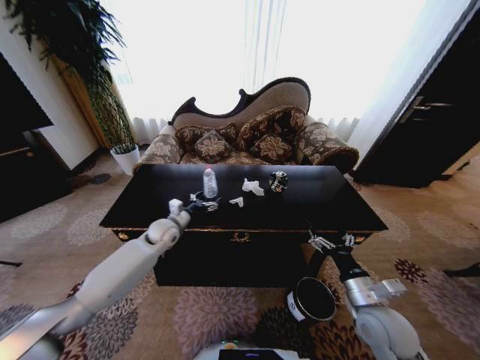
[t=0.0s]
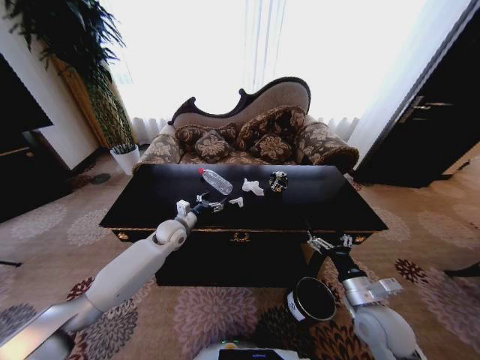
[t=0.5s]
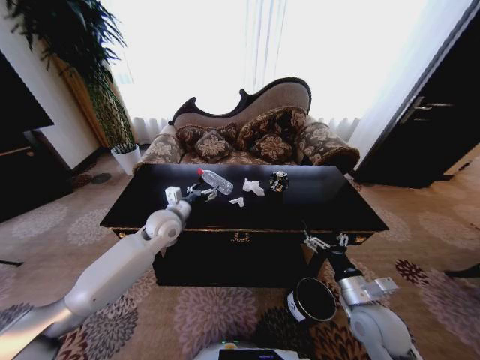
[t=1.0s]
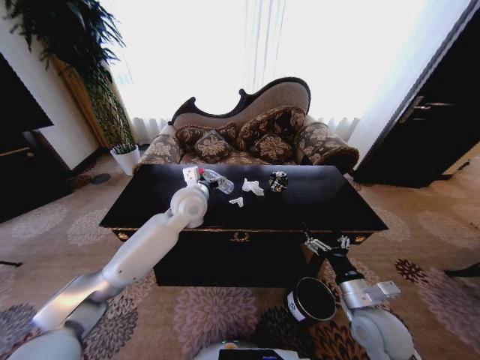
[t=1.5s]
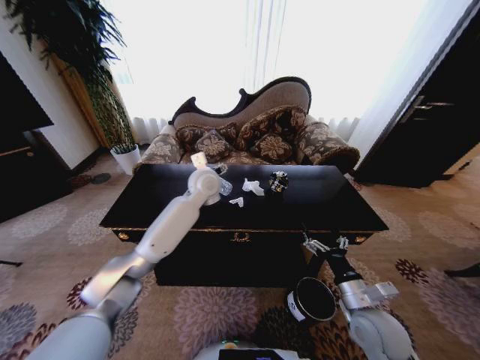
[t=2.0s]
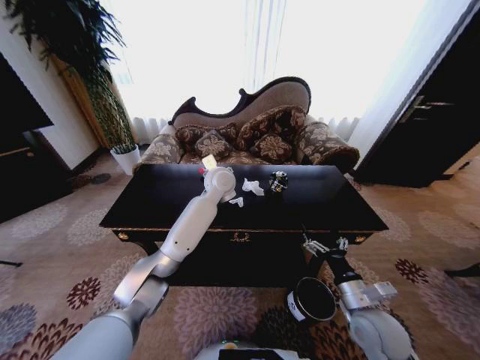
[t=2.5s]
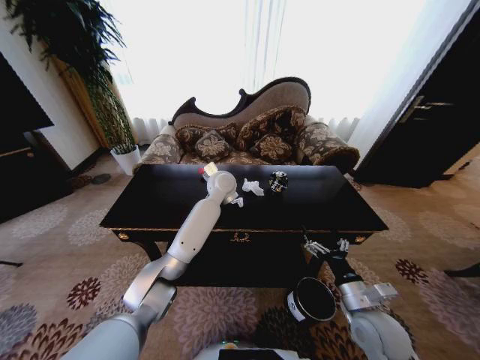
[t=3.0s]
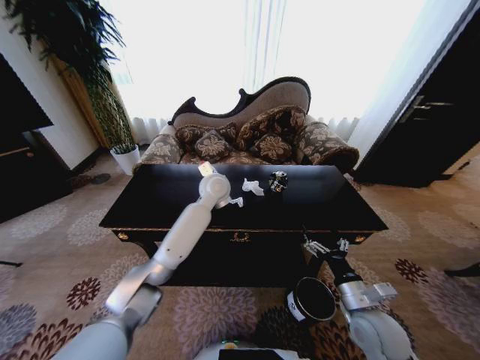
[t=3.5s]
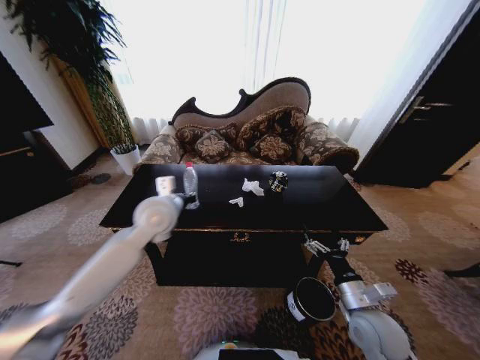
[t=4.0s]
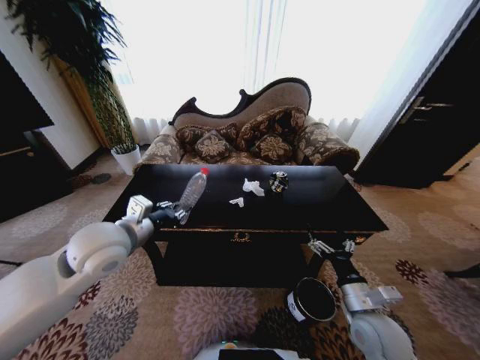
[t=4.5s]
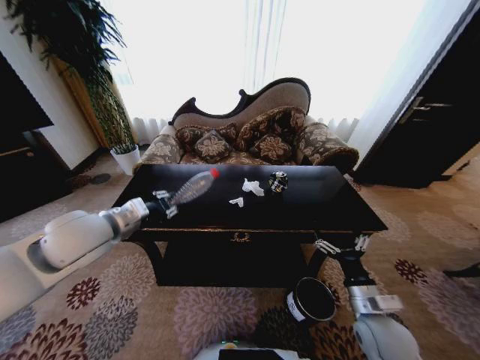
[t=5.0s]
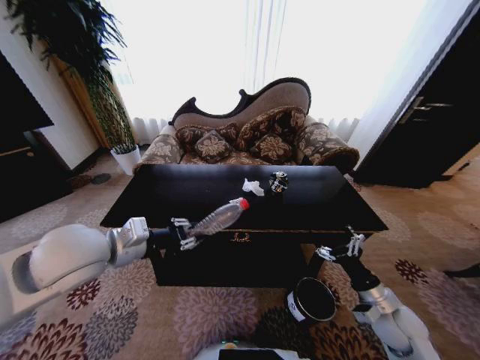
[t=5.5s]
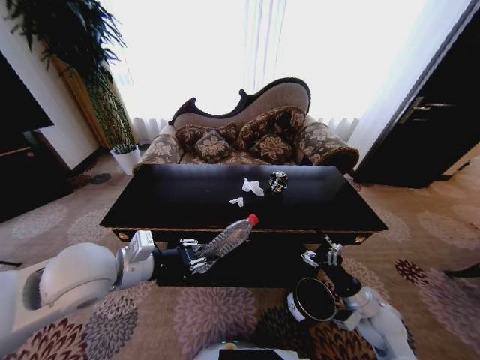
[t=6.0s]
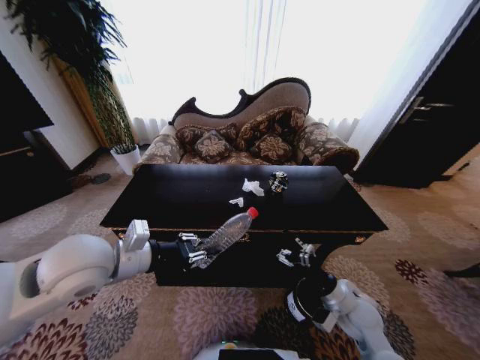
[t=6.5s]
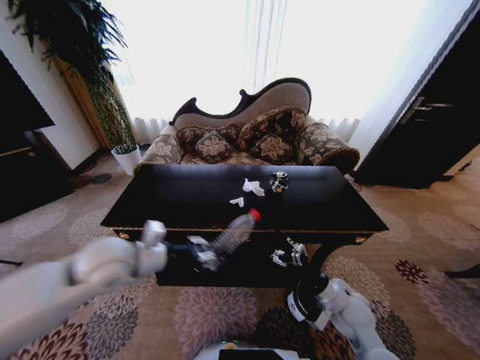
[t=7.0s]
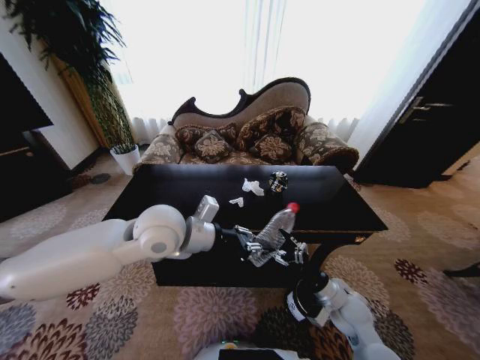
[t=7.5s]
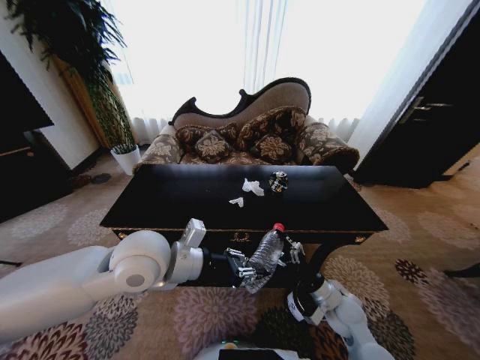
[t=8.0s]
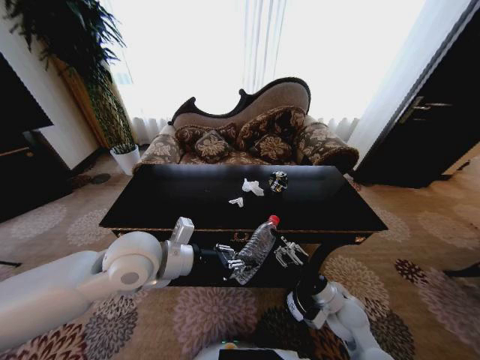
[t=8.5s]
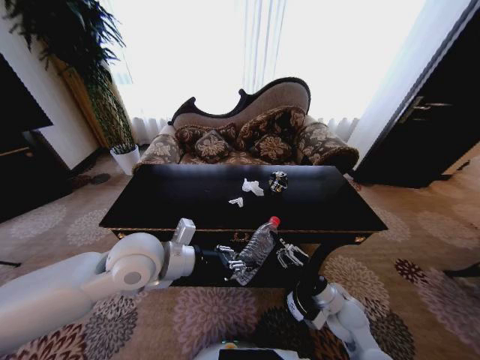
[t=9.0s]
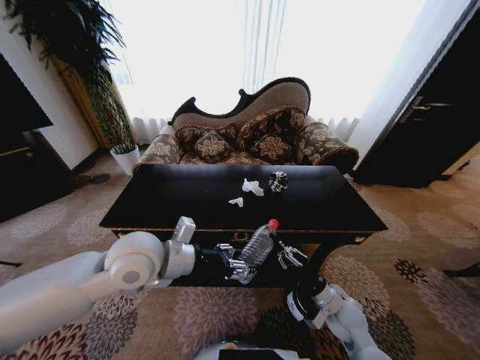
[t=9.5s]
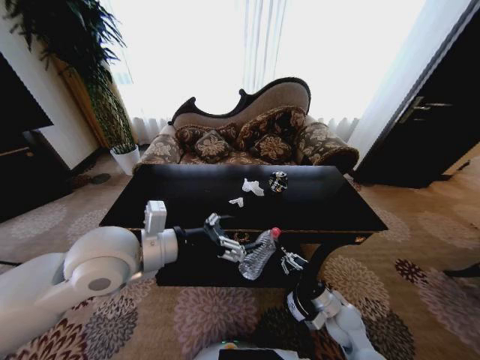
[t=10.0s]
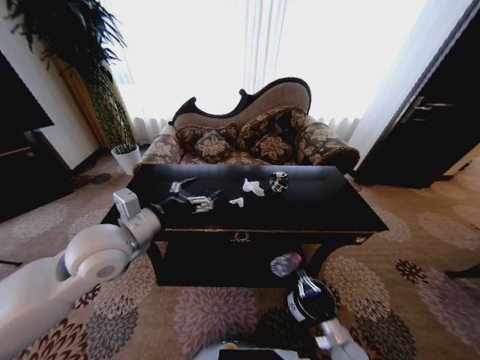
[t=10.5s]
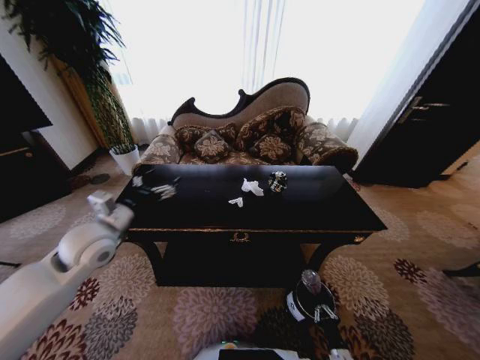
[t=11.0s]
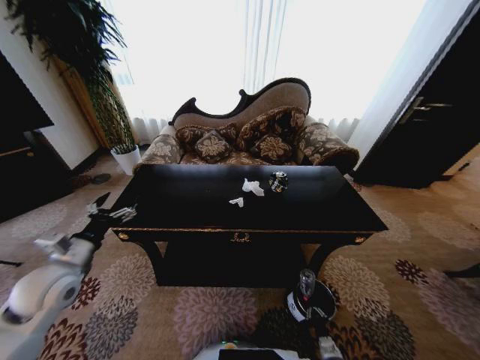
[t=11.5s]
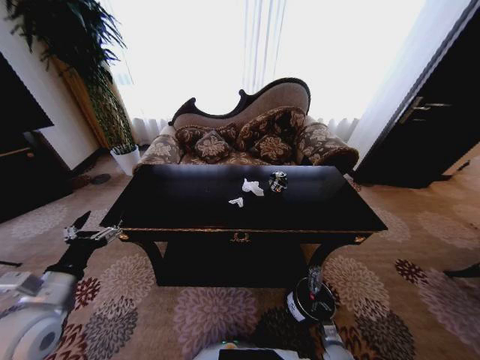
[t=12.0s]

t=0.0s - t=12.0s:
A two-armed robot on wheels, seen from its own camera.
Task of the whole recording: Move to the front of the table and place the trash on the table into the trash bin.
t=0.0s - t=2.0s: The left gripper heads upward and to the right, covering some 25 cm.
t=2.0s - t=4.0s: The left gripper heads backward and to the left, covering about 15 cm, and closes up.
t=4.0s - t=6.0s: The right gripper goes some 10 cm to the right and downward. The left gripper moves backward and to the left, approximately 15 cm.
t=6.0s - t=8.0s: The left gripper goes about 10 cm to the right. The right gripper travels to the left by approximately 5 cm.
t=8.0s - t=10.0s: The left gripper shifts by some 5 cm, and opens. The right gripper closes up.
t=10.0s - t=12.0s: The left gripper moves to the left, downward and backward, about 25 cm. Meanwhile the right gripper is displaced downward by roughly 25 cm.

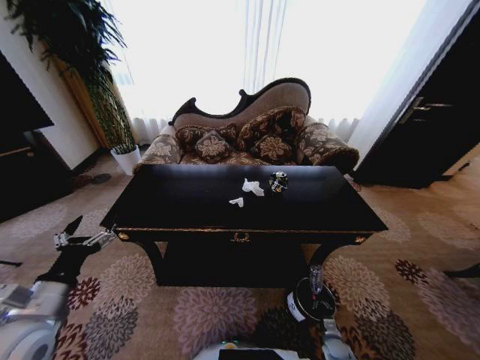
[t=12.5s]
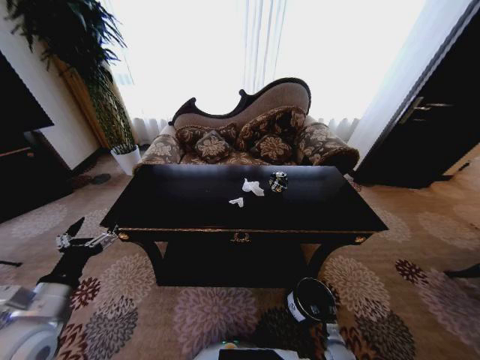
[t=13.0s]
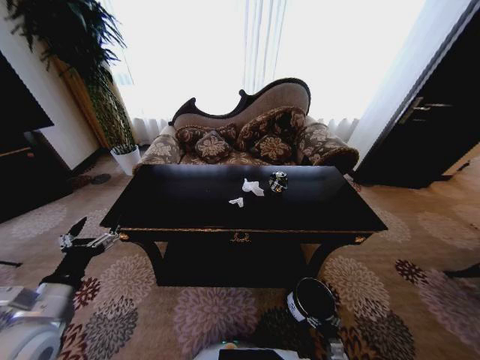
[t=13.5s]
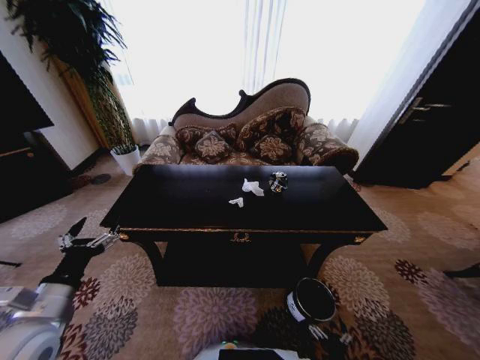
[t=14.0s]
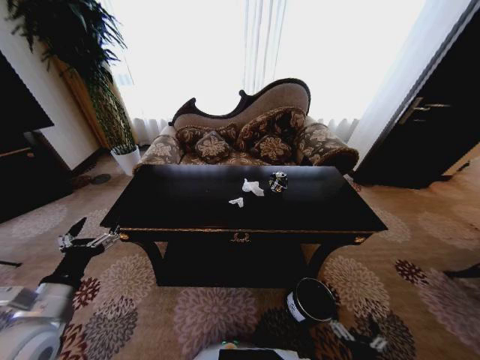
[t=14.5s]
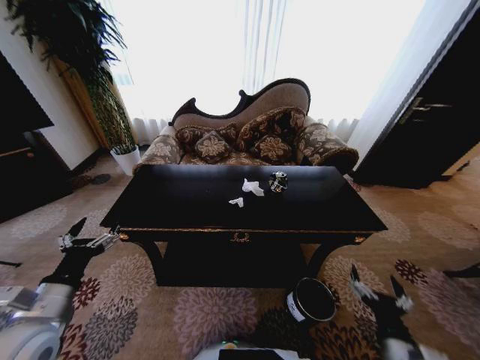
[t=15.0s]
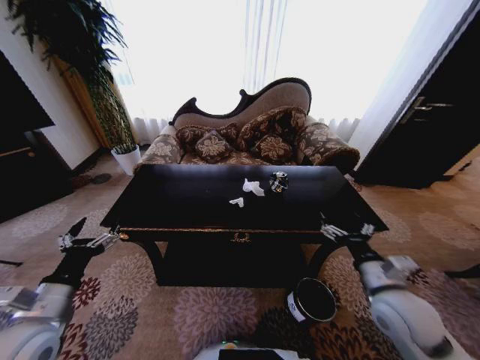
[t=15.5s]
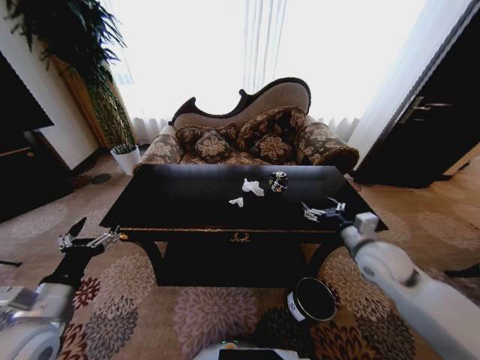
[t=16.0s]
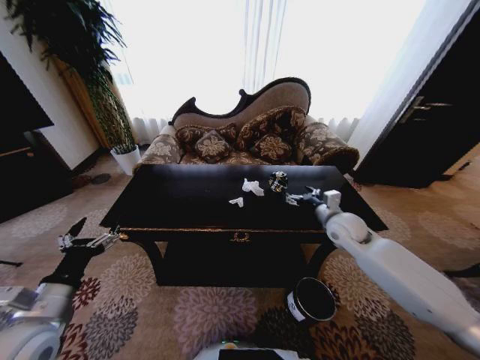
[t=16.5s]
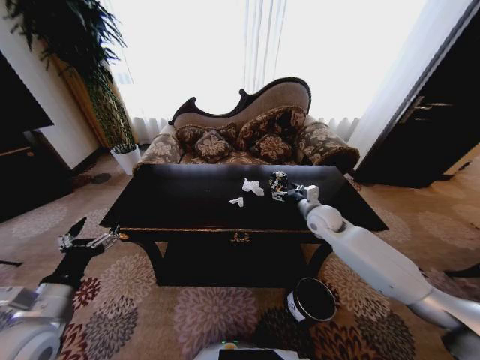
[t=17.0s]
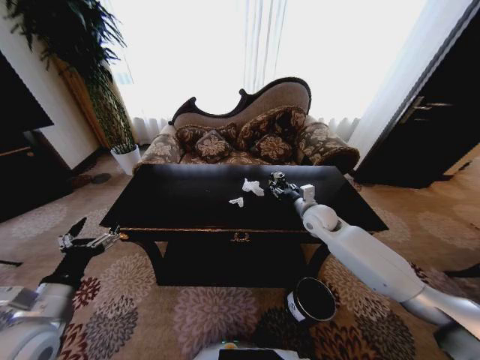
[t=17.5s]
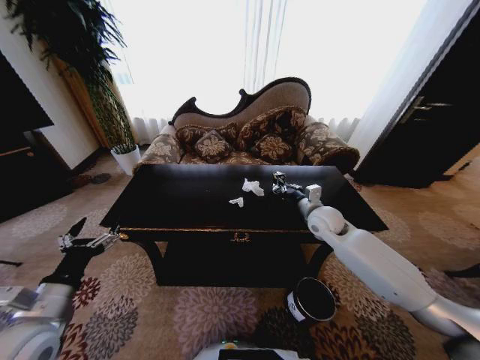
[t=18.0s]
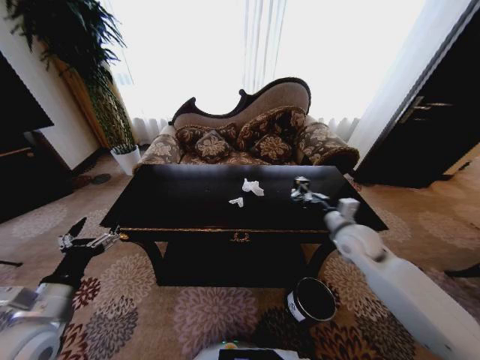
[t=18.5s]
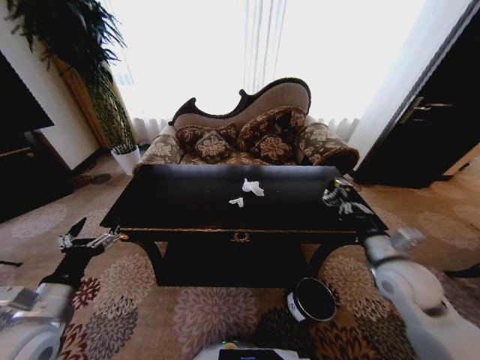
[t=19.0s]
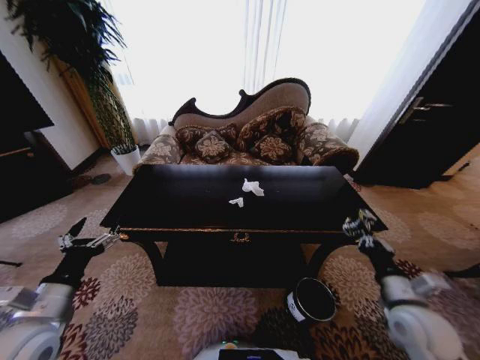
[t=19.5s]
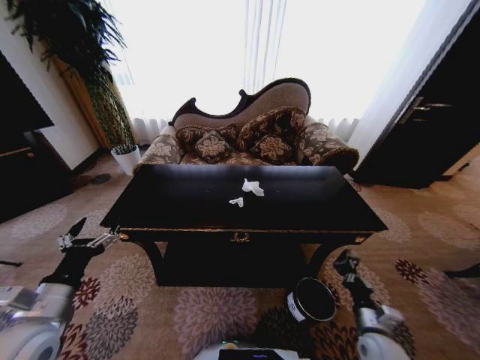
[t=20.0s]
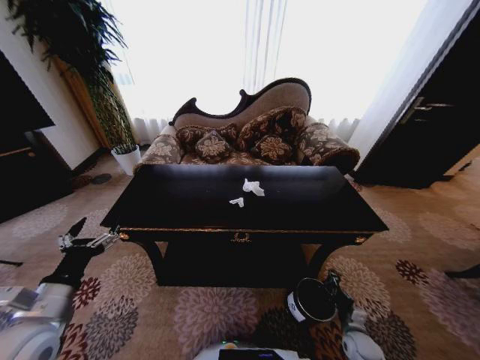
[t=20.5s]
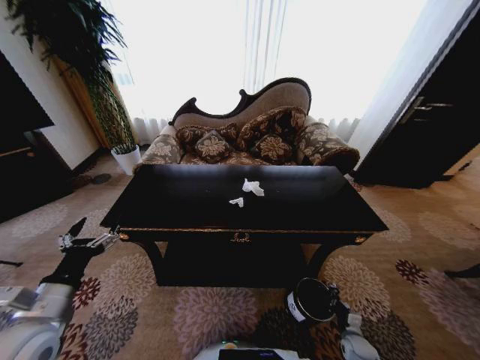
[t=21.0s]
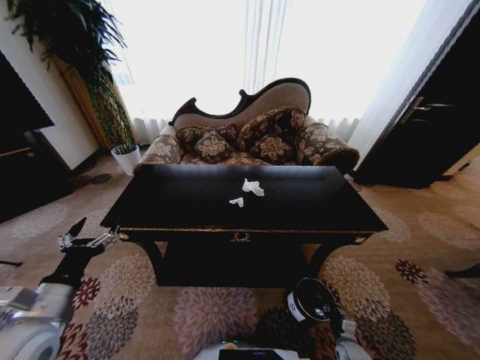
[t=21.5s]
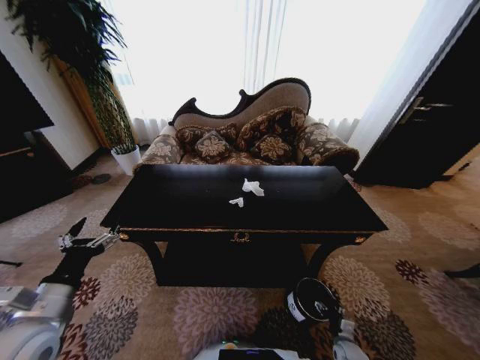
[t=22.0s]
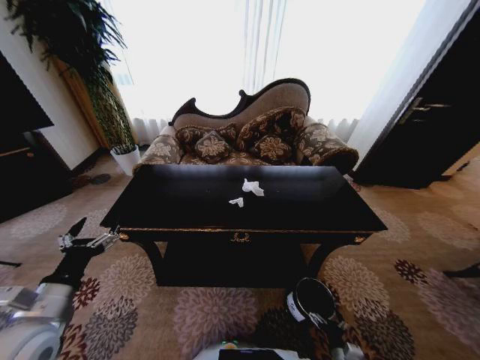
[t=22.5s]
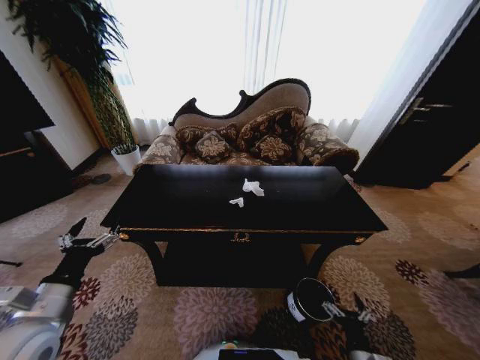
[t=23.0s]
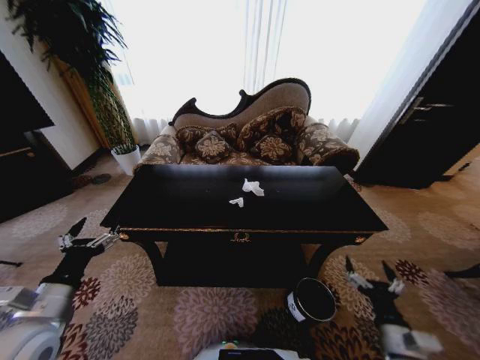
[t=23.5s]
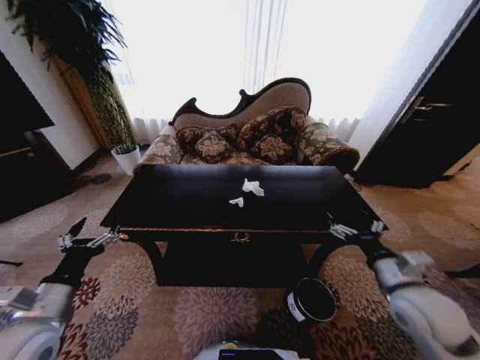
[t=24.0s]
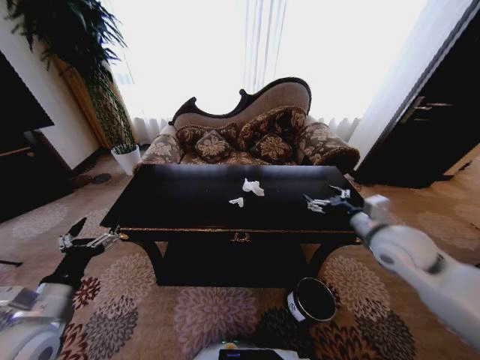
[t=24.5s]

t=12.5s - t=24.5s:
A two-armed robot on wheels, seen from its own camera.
Task of the whole recording: Move to the front of the table and place the trash on the table into the trash bin.
t=12.5s - t=14.5s: The right gripper shifts about 30 cm upward, backward and to the left, and opens its fingers.
t=14.5s - t=16.5s: The right gripper moves forward and upward, about 50 cm.
t=16.5s - t=18.5s: The right gripper closes up.
t=18.5s - t=20.5s: The right gripper travels downward and backward by about 40 cm.
t=20.5s - t=22.5s: The right gripper travels backward and to the left by about 15 cm, and opens.
t=22.5s - t=24.5s: The right gripper travels upward and forward by about 50 cm.

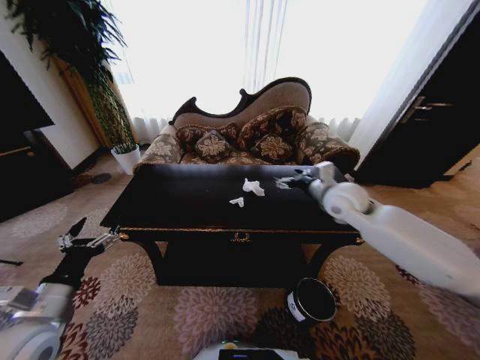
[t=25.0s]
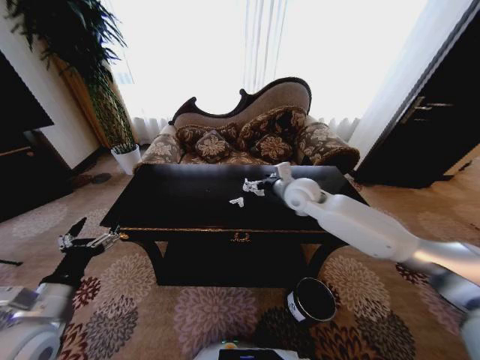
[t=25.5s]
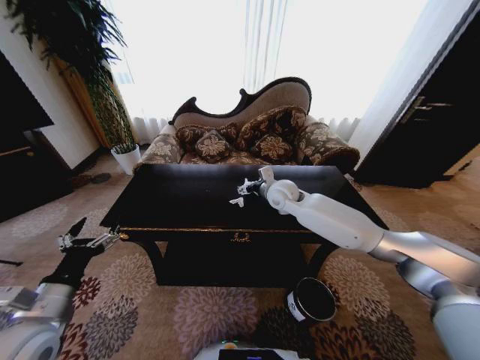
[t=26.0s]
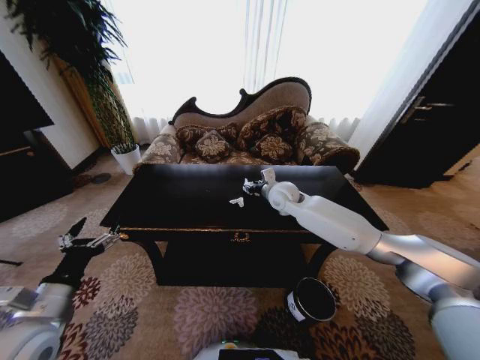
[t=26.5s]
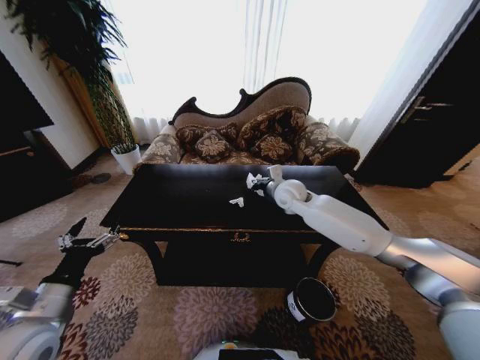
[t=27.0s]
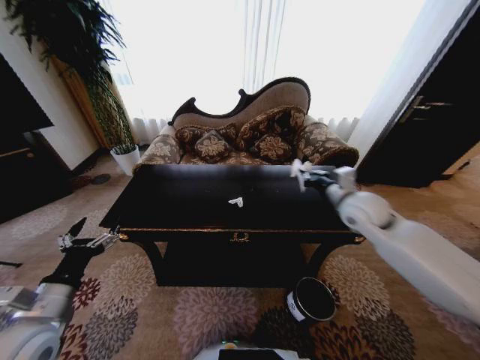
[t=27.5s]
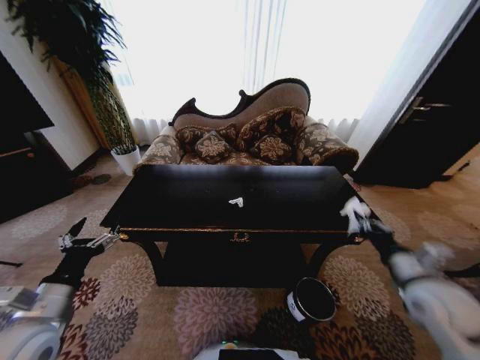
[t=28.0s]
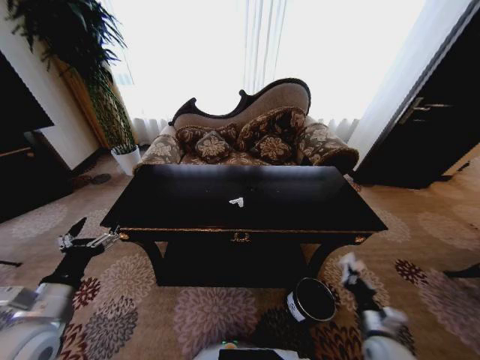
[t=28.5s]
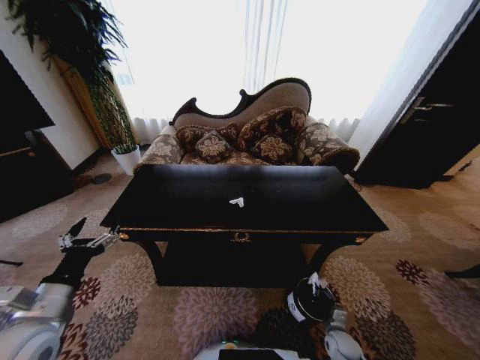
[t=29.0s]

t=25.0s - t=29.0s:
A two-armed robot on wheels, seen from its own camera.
Task of the whole recording: Move to the front of the table and place the trash on the table into the trash bin.
t=25.0s - t=27.0s: The right gripper is displaced to the left and forward by approximately 15 cm, and closes its fingers.
t=27.0s - t=29.0s: The right gripper heads downward, backward and to the right, covering approximately 60 cm.
